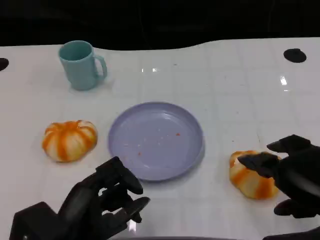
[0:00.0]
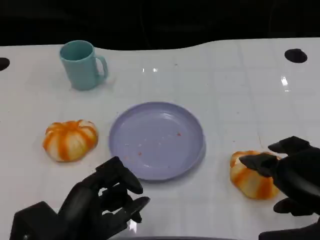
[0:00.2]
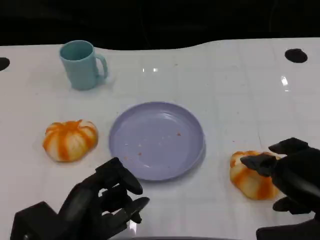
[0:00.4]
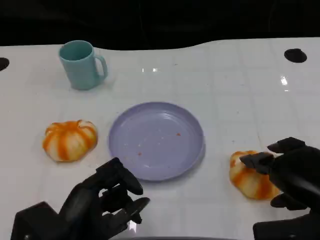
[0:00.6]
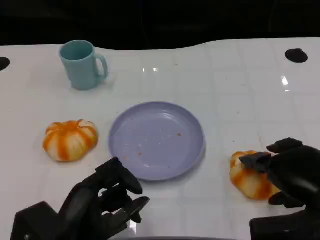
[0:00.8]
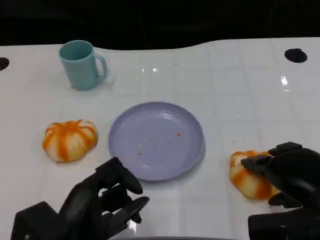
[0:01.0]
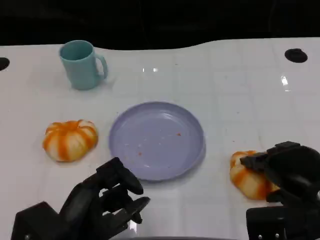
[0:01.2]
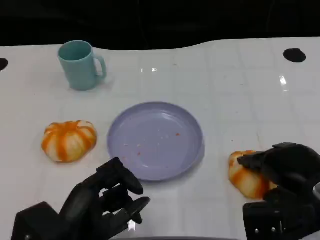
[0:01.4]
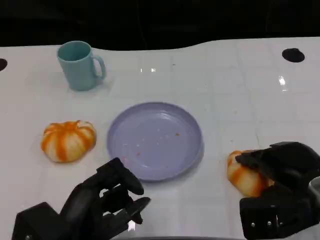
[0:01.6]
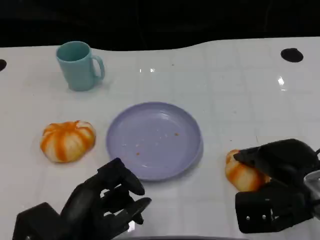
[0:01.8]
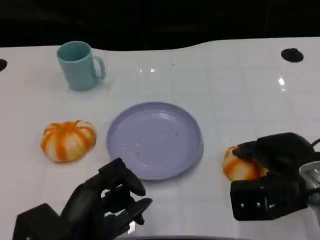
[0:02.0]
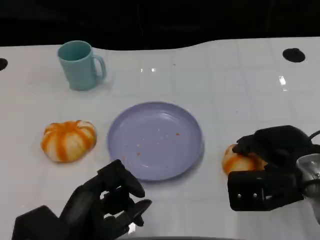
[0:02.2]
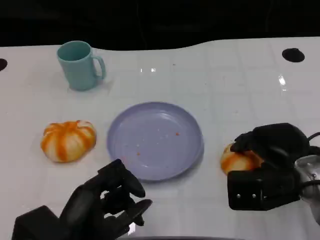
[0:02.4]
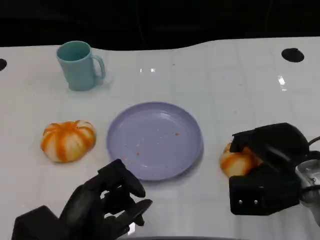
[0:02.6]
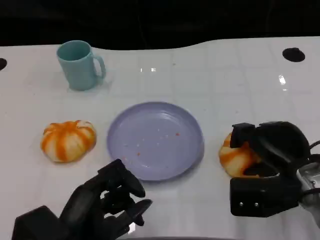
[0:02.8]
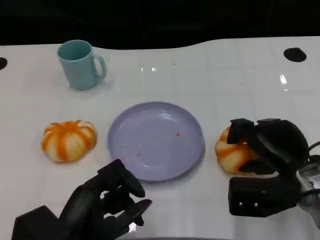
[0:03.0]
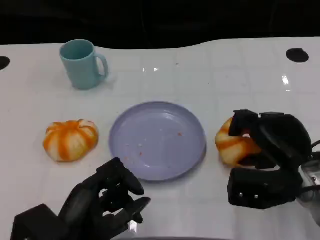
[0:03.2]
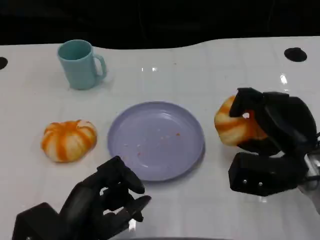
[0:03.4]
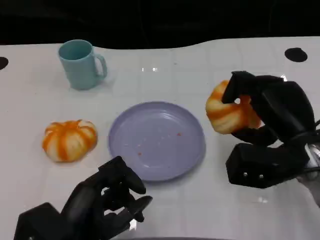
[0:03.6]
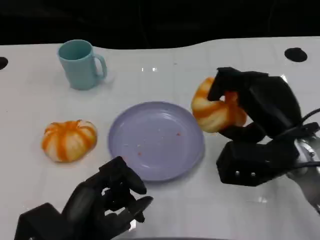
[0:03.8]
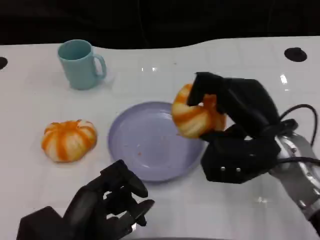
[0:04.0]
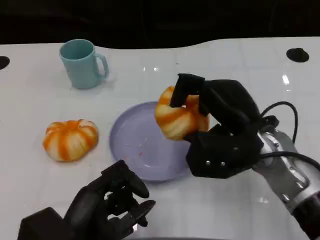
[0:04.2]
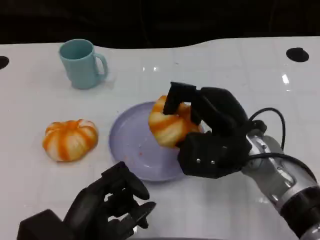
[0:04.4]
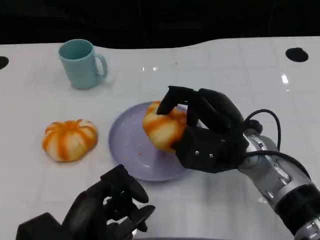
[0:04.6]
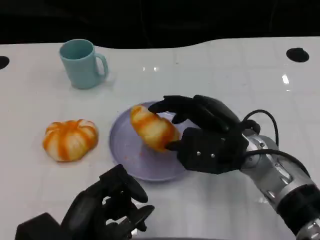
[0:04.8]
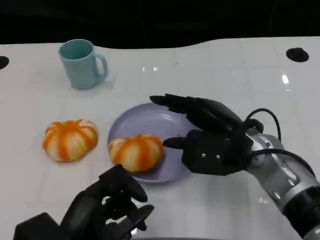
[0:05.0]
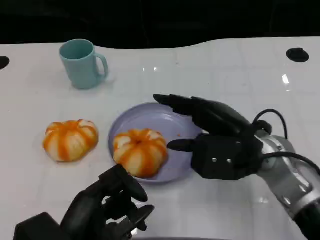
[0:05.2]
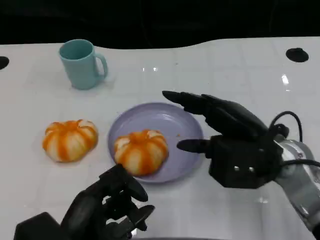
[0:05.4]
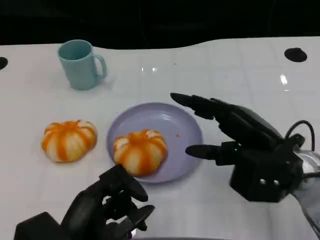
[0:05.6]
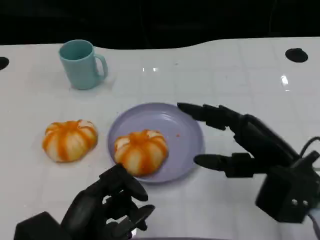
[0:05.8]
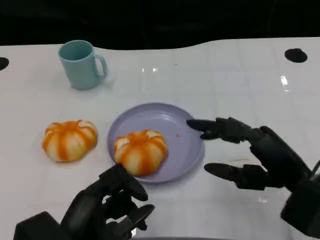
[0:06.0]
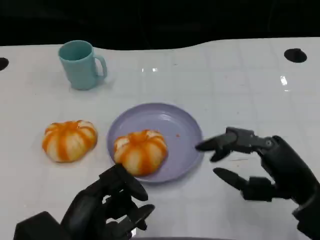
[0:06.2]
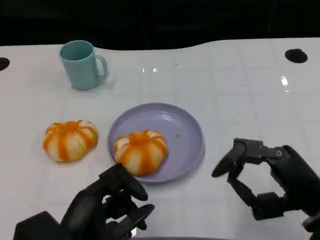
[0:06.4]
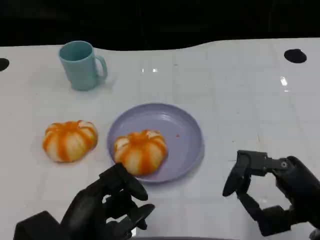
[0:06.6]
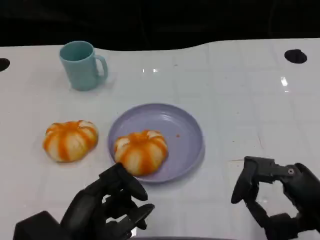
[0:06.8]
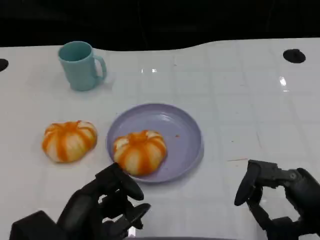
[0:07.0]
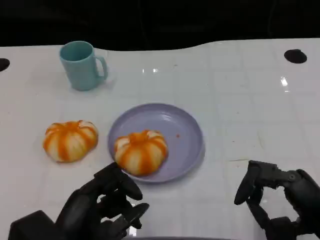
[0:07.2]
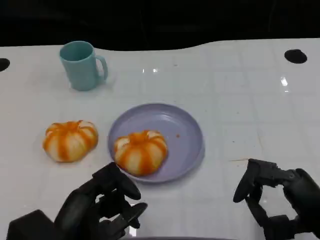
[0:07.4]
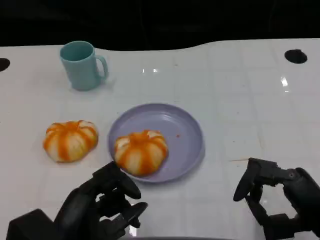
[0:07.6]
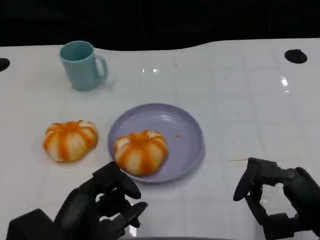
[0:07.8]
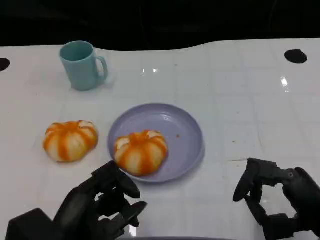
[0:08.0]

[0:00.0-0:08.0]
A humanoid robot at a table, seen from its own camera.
Task of the whole recording: Grasp the bread from the table and place it into the plate.
0:00.0 to 0:01.6: The right hand shifts about 5 cm forward.
0:03.2 to 0:04.8: The right hand goes some 10 cm to the left.
0:04.8 to 0:06.4: The right hand is displaced backward and to the right by some 15 cm.
0:06.4 to 0:08.0: The hands move only a little.
